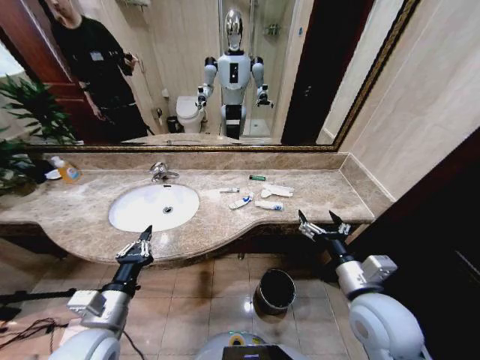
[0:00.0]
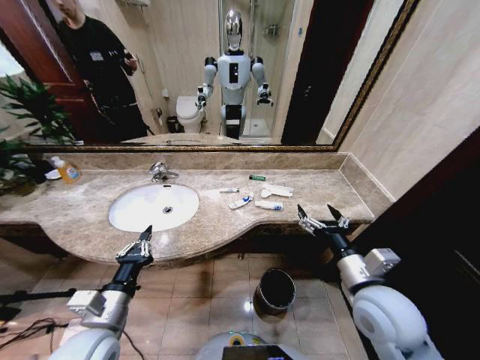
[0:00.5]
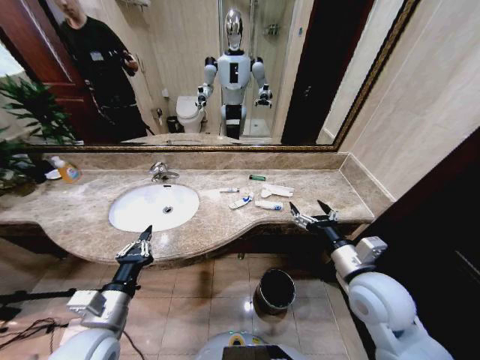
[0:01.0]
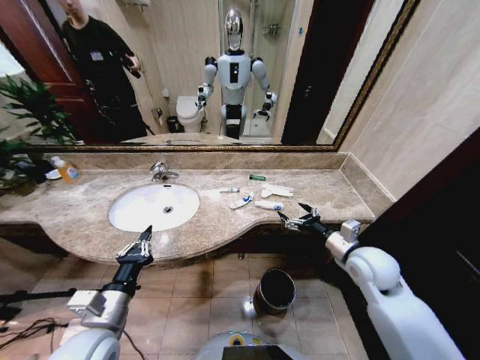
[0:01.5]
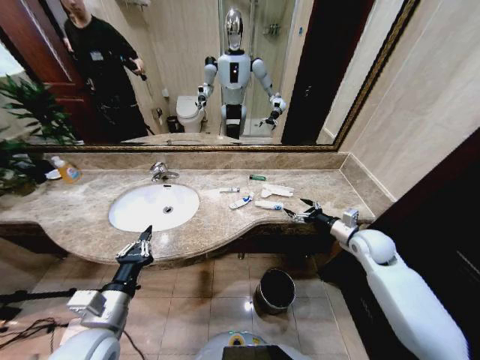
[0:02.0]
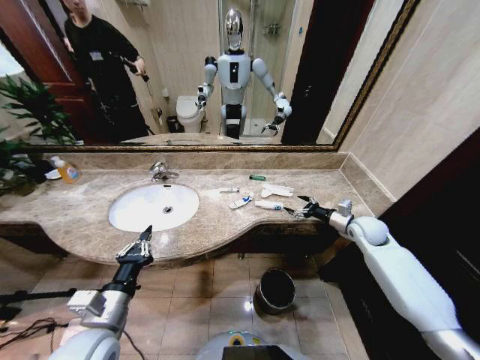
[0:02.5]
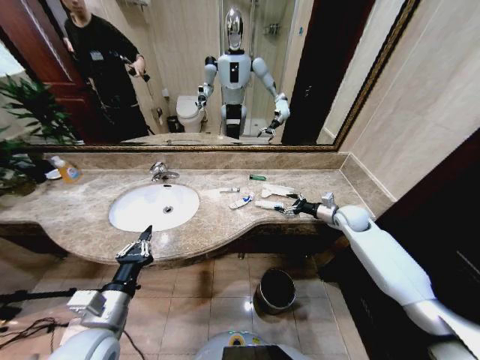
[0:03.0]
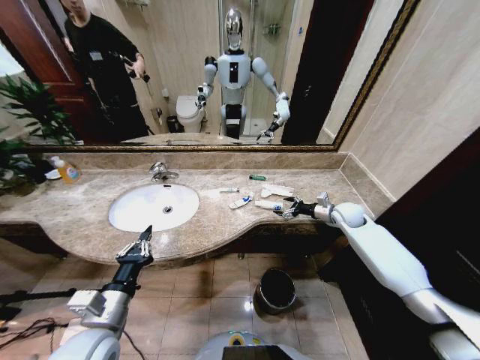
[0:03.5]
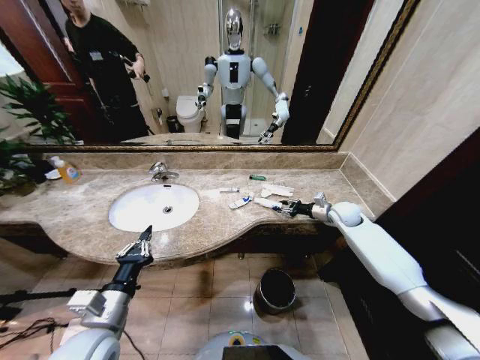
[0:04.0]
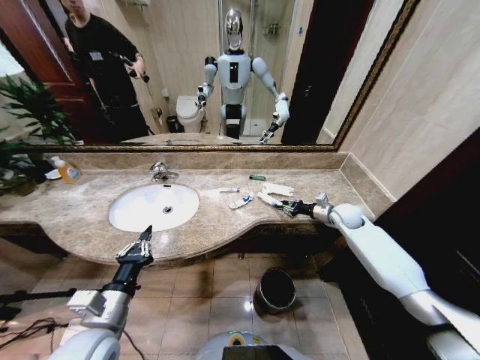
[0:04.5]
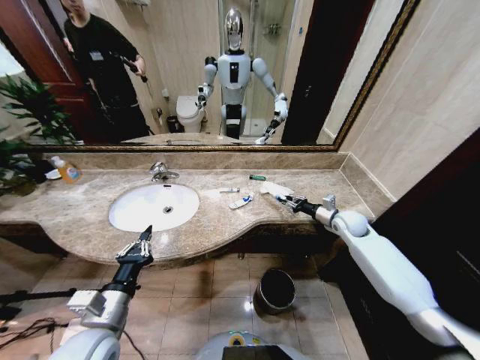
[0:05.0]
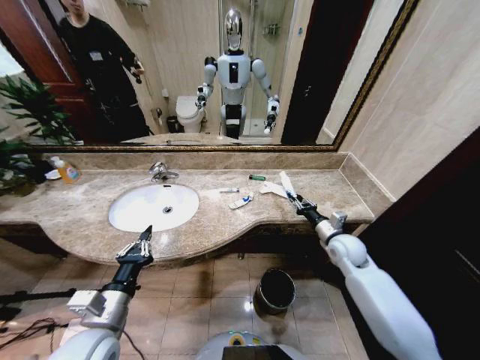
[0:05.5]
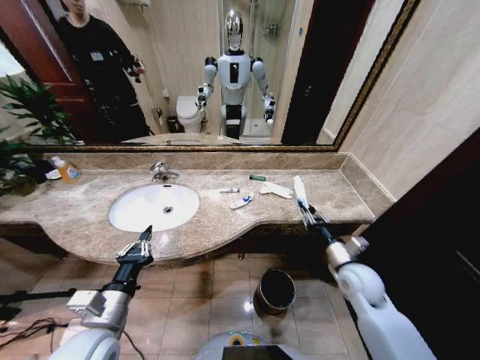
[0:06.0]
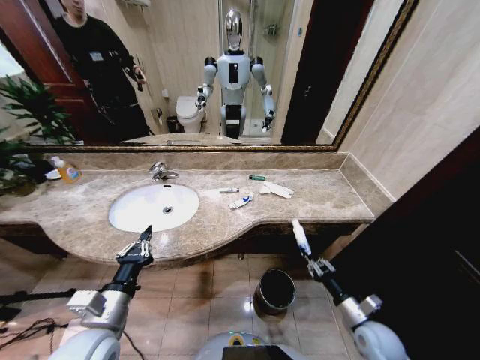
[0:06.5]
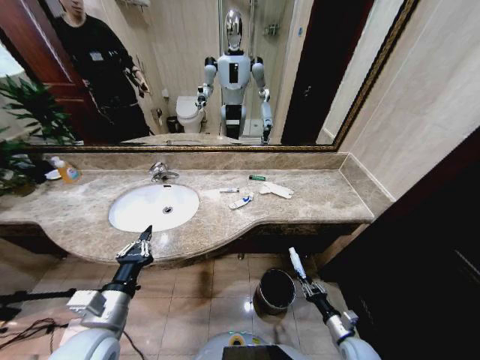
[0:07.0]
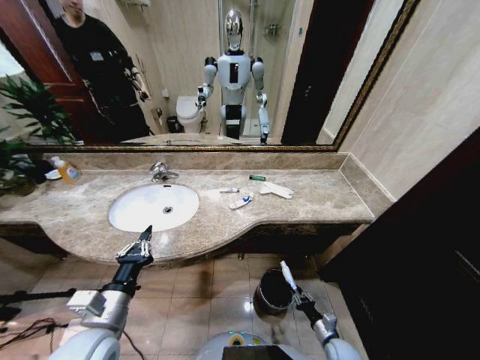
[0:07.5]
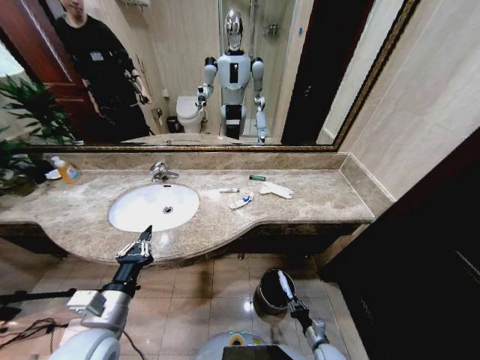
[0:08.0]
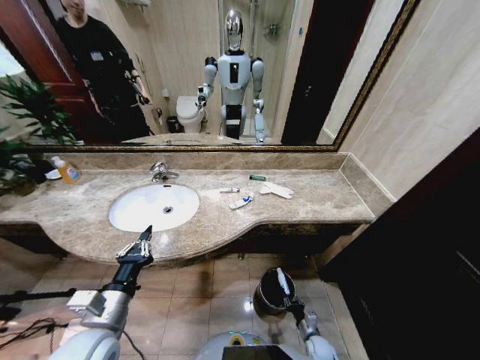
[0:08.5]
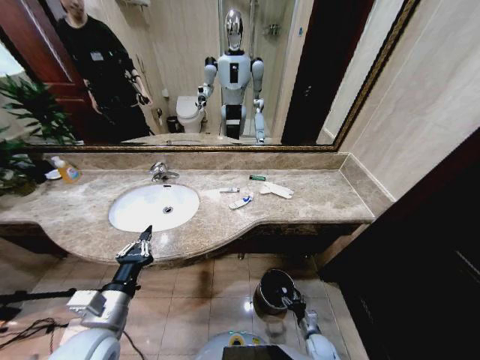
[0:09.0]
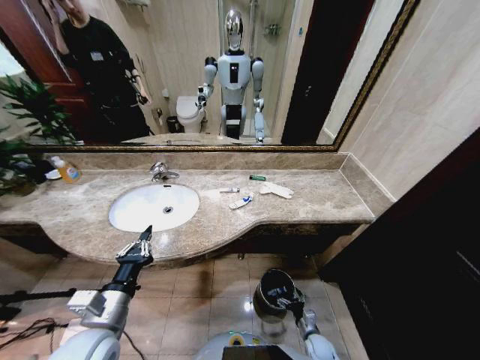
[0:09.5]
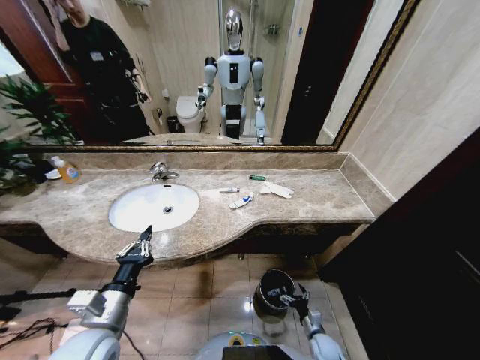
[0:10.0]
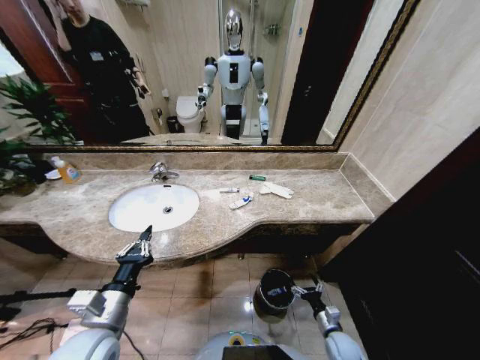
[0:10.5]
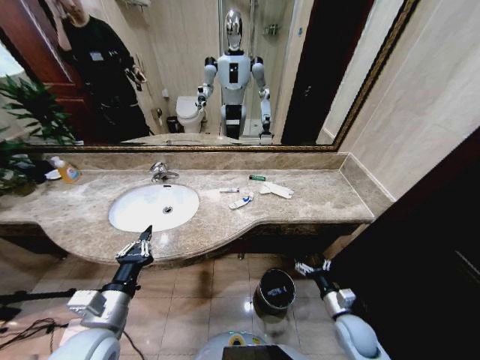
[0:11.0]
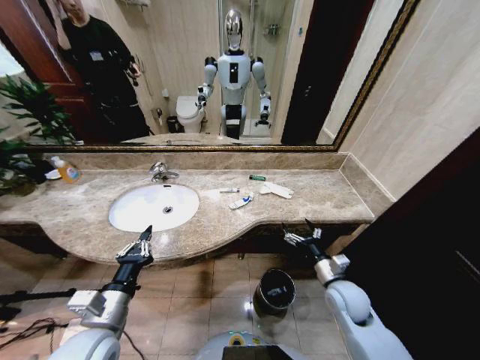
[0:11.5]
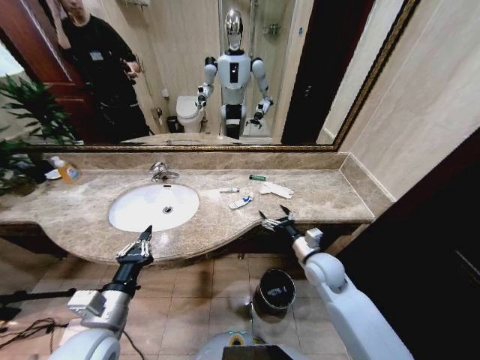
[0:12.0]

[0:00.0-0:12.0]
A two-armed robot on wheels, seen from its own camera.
Task of the whole recording: Pick up the trash from the sink and place it in the trash bin.
0:02.0 to 0:04.0: The right gripper heads forward, covering about 15 cm, and closes its fingers.
0:04.0 to 0:06.0: The right gripper heads backward, covering about 20 cm.
0:06.0 to 0:08.0: The right gripper goes about 35 cm downward.
0:08.0 to 0:10.0: The right gripper opens its fingers.
0:10.0 to 0:12.0: The right gripper goes approximately 35 cm upward and forward.

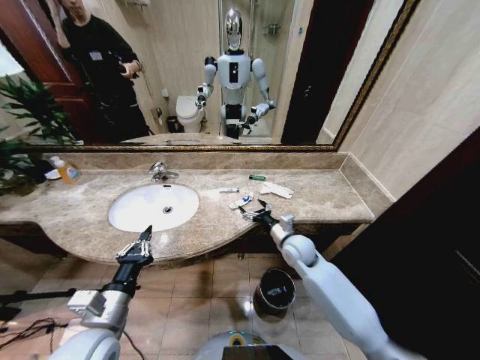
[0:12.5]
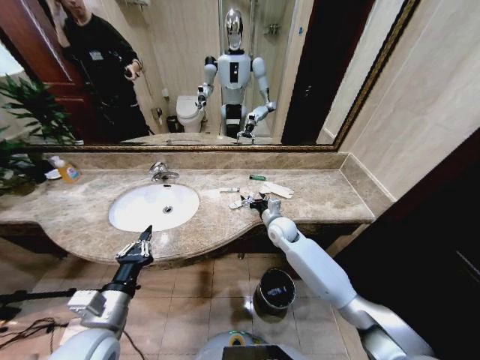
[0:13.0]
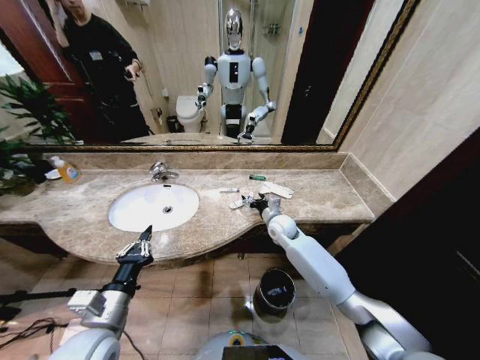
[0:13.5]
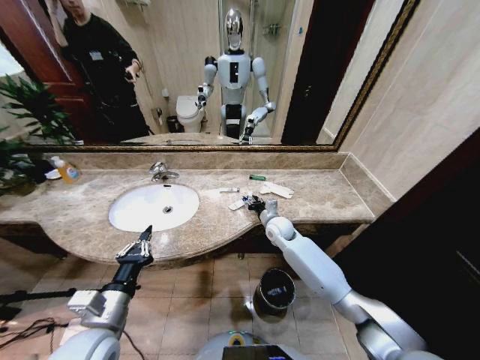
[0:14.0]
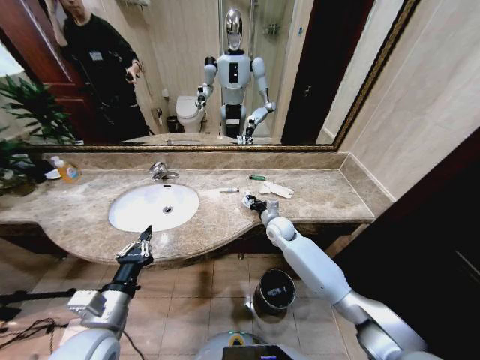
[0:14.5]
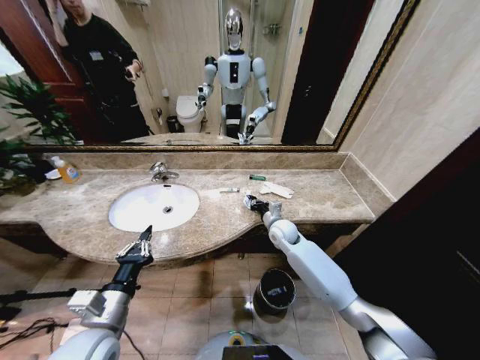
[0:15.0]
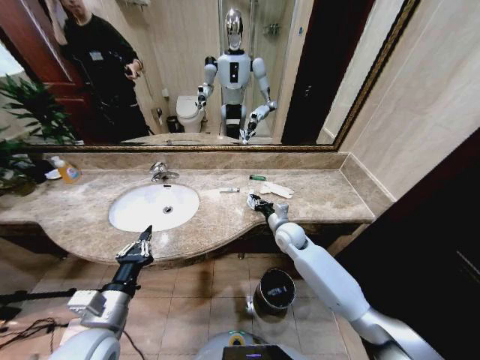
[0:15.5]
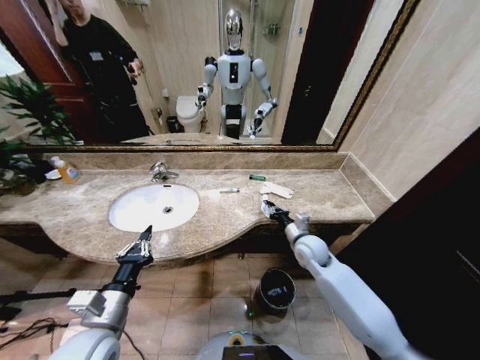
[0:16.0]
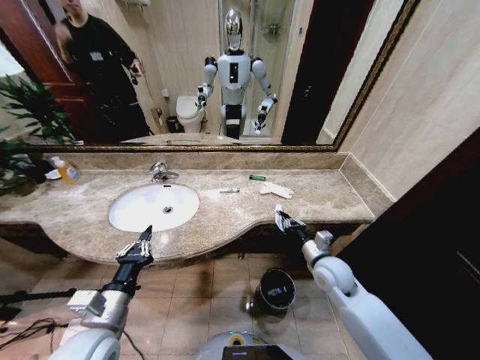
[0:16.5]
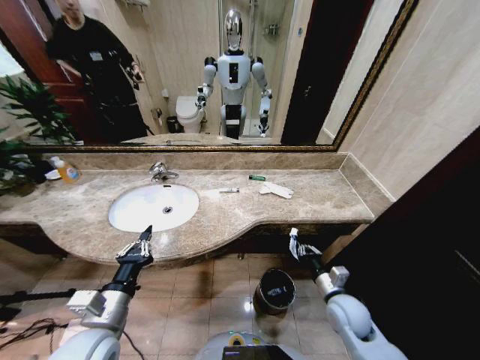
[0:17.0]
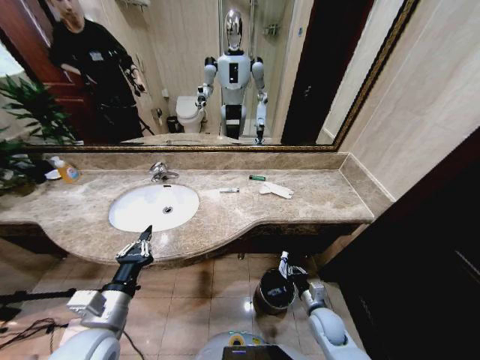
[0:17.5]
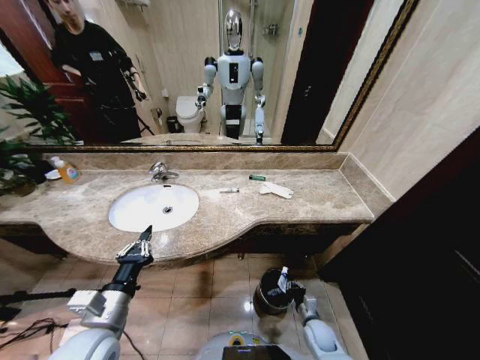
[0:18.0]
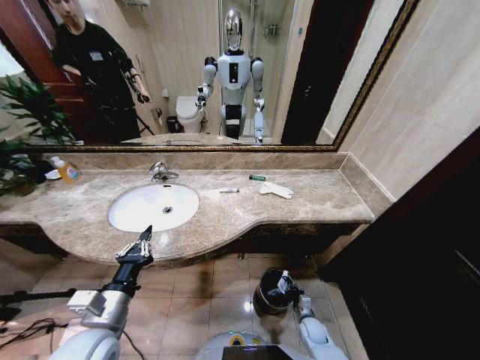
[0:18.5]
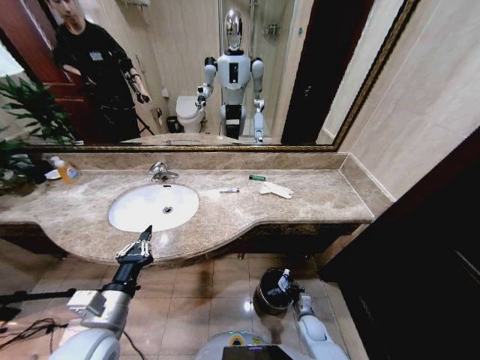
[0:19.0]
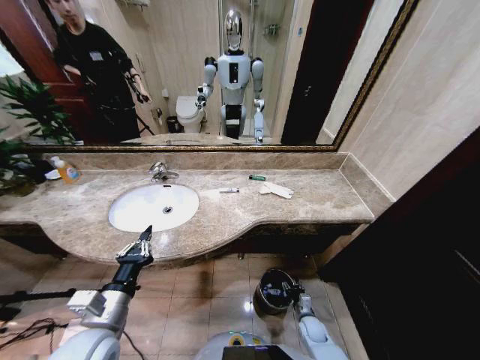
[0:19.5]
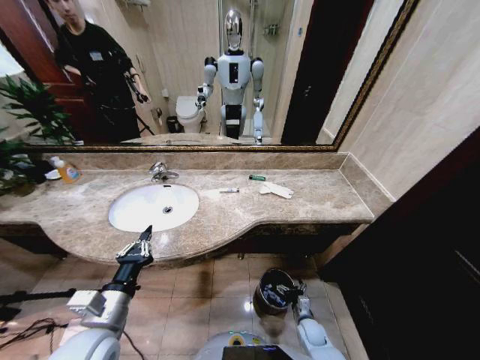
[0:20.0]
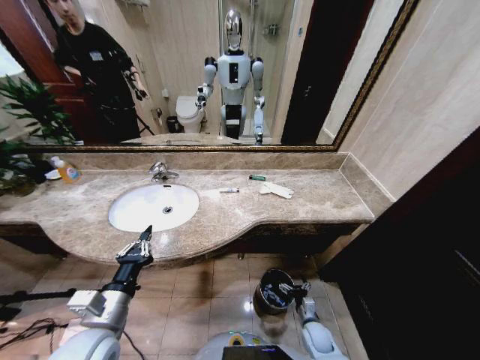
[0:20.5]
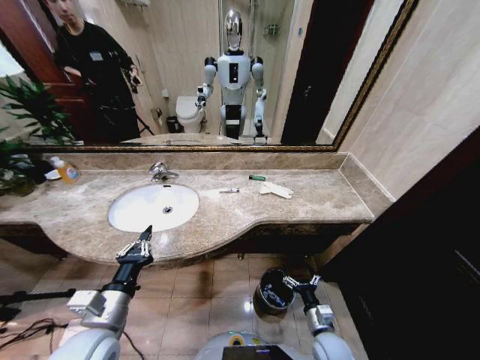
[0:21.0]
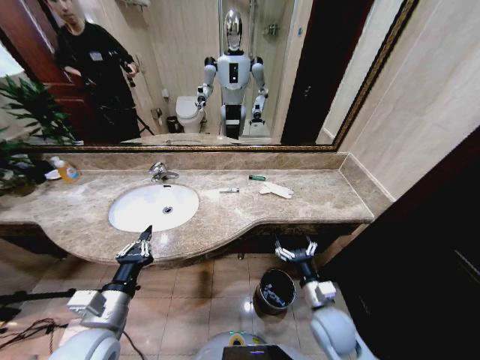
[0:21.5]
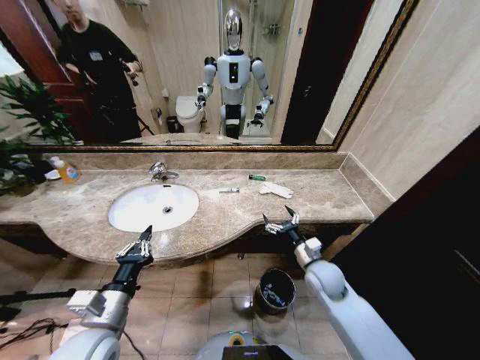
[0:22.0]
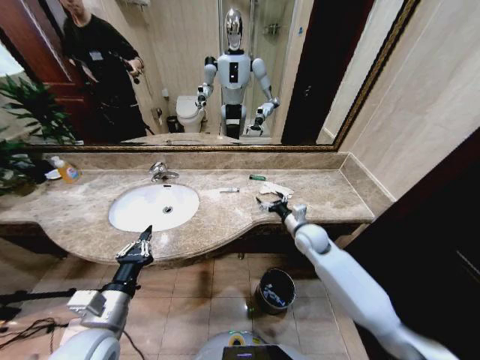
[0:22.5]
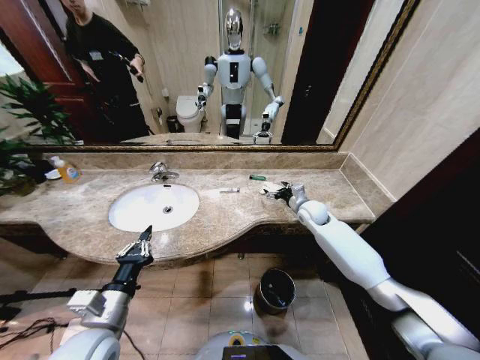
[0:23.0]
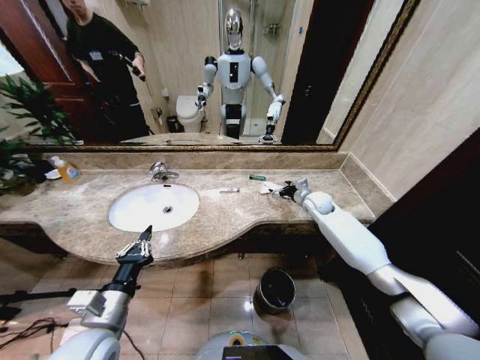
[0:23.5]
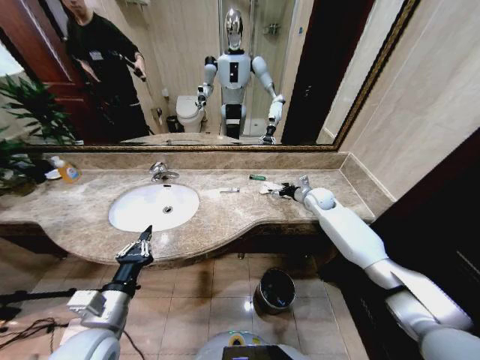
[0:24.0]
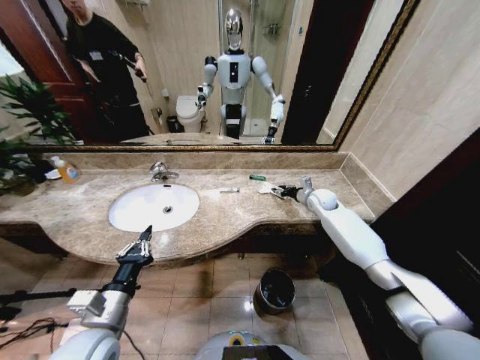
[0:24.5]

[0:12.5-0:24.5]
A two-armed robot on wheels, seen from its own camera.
Task of the whole recording: Pick up the trash from the sink and place it in the trash bin.
0:12.5 to 0:14.5: The right gripper moves forward, roughly 10 cm, and closes up.
0:14.5 to 0:16.5: The right gripper moves backward and to the right, some 20 cm.
0:16.5 to 0:18.5: The right gripper shifts approximately 30 cm downward.
0:18.5 to 0:20.5: The right gripper opens its fingers.
0:20.5 to 0:22.5: The right gripper goes some 35 cm upward and forward.
0:22.5 to 0:24.5: The right gripper travels forward and to the right by some 15 cm, and closes its fingers.

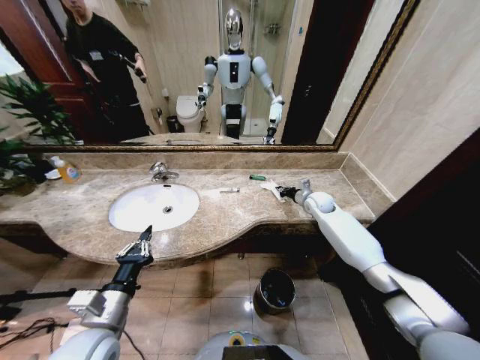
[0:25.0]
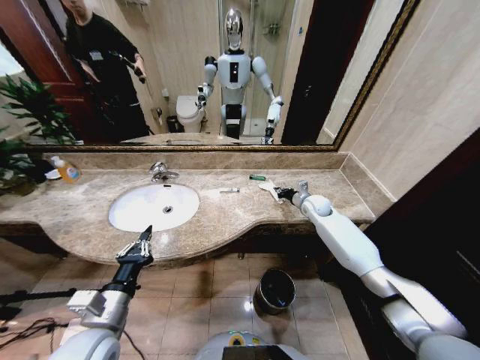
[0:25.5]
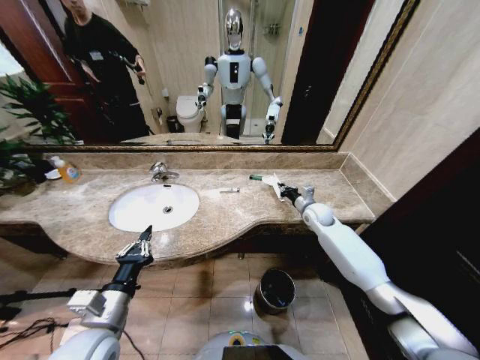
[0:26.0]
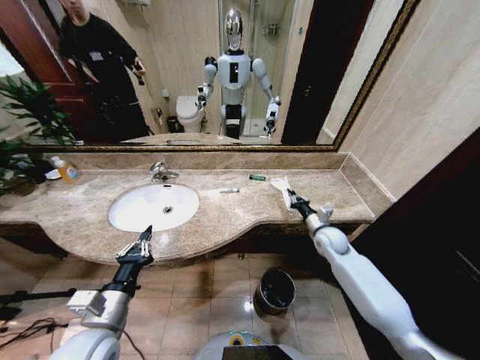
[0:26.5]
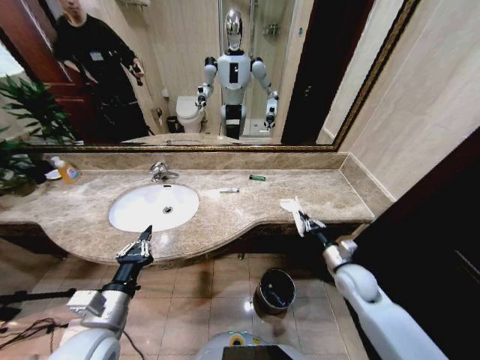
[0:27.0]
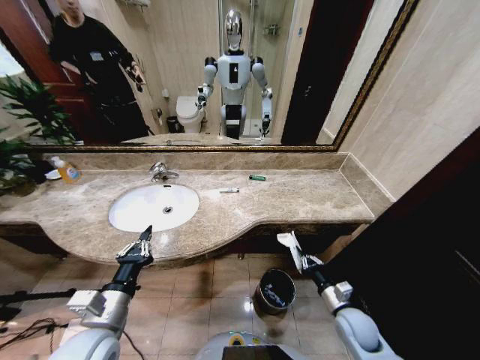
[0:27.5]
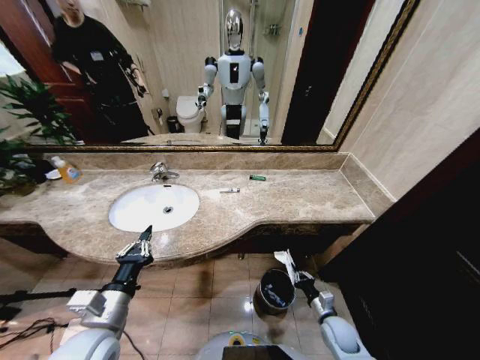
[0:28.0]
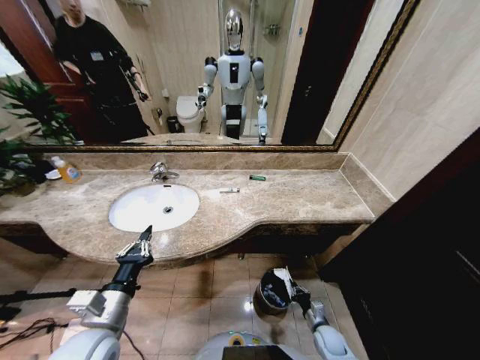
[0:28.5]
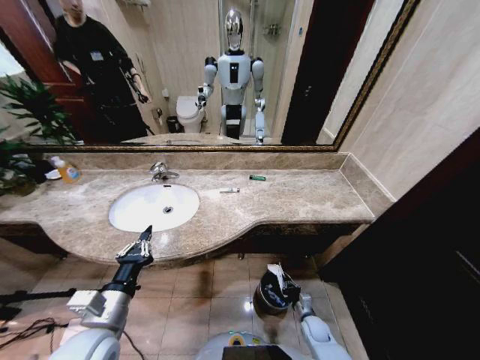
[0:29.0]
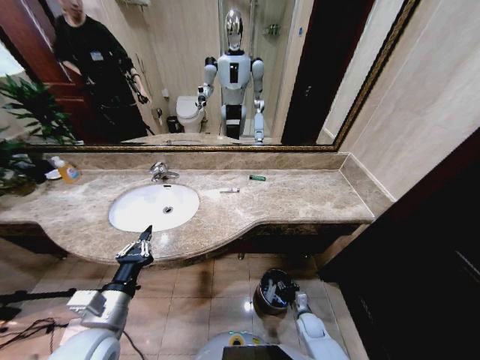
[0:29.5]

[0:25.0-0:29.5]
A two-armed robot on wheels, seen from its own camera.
Task of the whole recording: Pick up the trash from the sink and place it in the trash bin.
0:25.0 to 0:27.0: The right gripper is displaced backward by about 25 cm.
0:27.0 to 0:29.5: The right gripper shifts some 30 cm downward, and opens.
